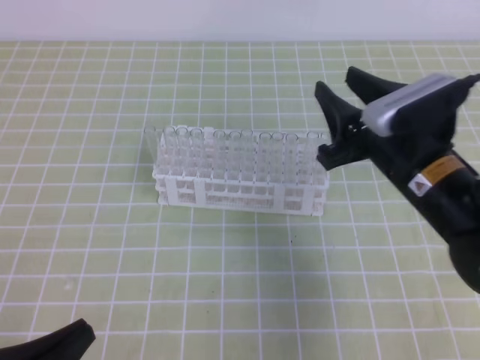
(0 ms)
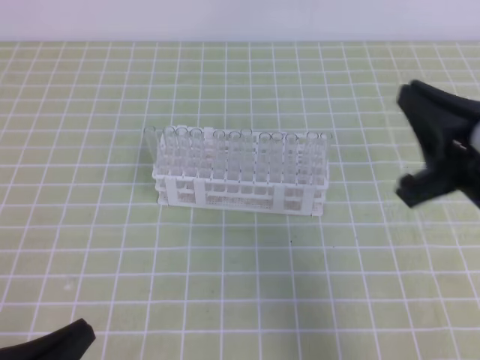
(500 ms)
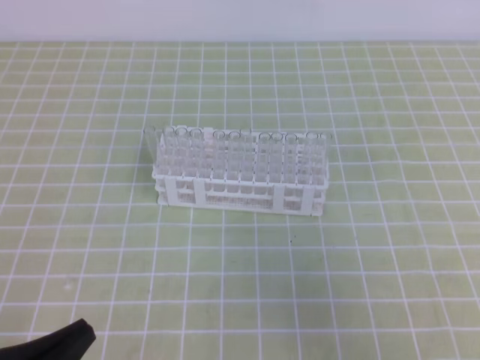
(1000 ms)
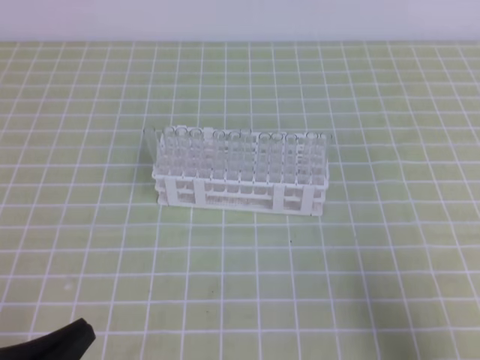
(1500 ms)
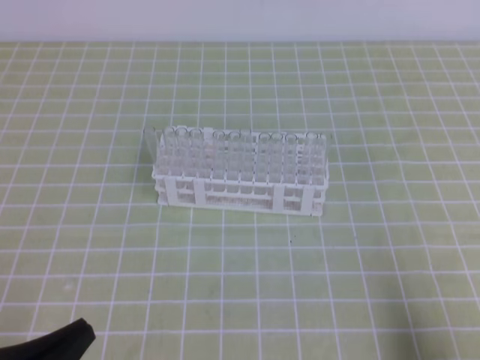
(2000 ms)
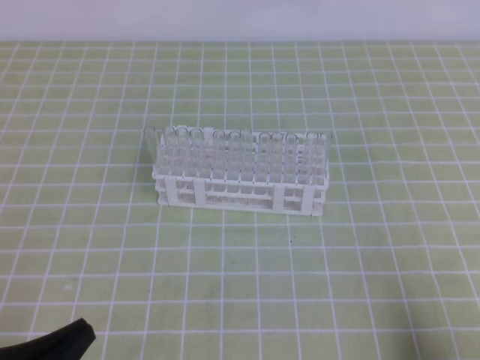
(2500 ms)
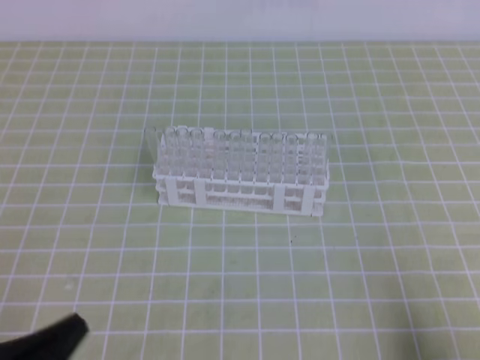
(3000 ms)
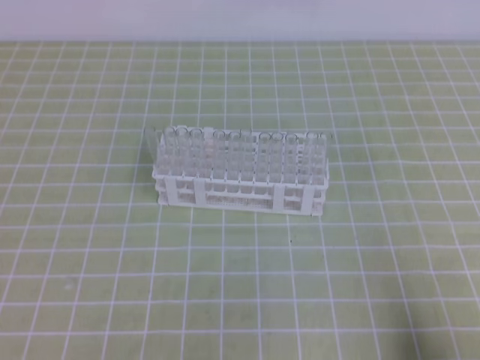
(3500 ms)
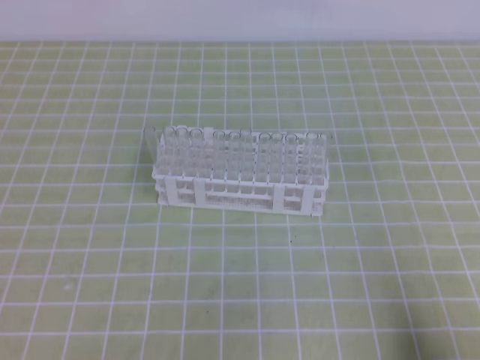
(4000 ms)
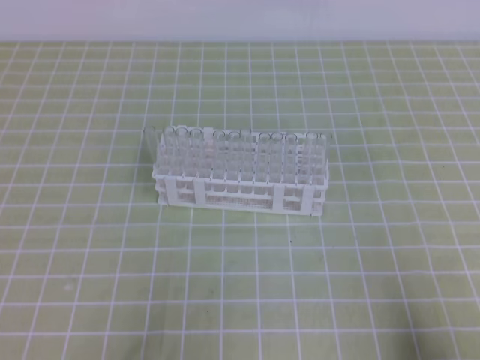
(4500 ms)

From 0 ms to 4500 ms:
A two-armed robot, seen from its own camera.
From 0 ms to 2000 ms: The right gripper moves backward and to the right, approximately 25 cm, and closes its fingers.
From 2000 ms to 4500 ms: The left gripper moves to the left, about 5 cm.
